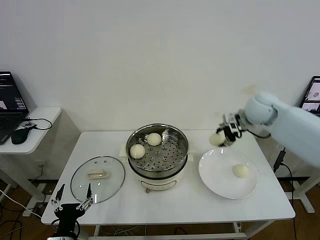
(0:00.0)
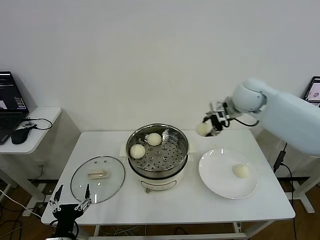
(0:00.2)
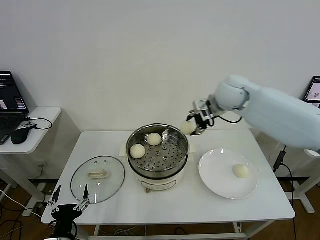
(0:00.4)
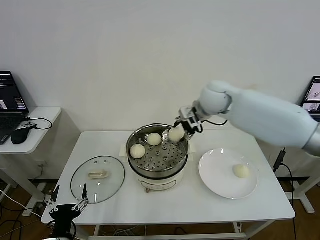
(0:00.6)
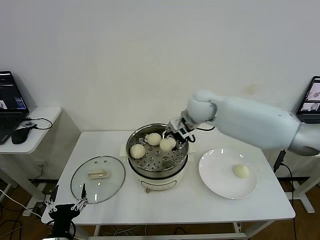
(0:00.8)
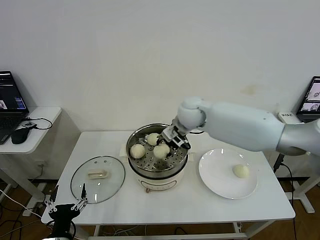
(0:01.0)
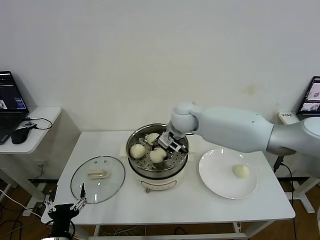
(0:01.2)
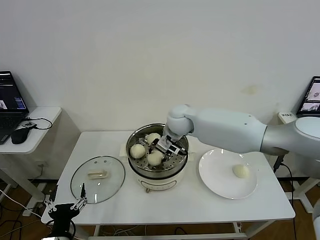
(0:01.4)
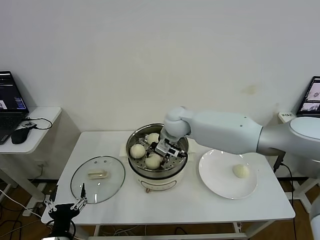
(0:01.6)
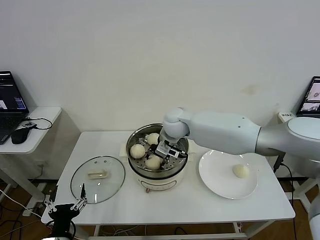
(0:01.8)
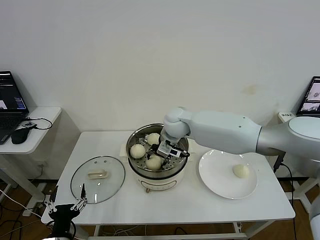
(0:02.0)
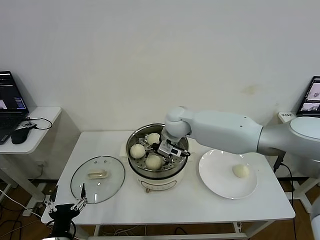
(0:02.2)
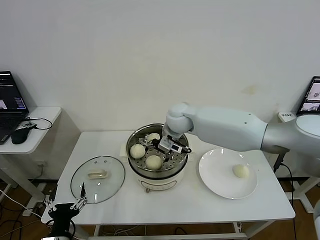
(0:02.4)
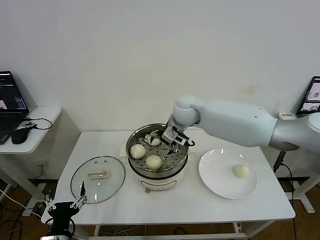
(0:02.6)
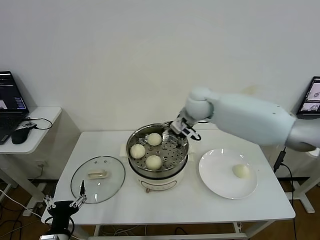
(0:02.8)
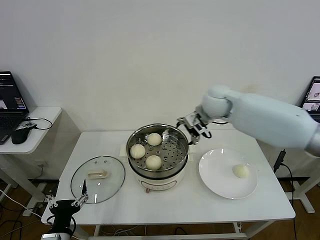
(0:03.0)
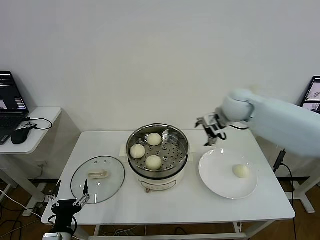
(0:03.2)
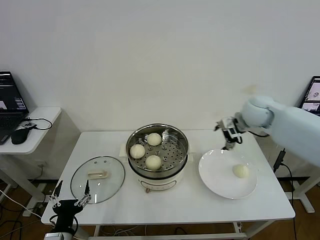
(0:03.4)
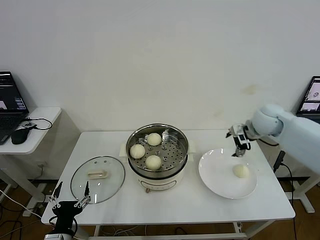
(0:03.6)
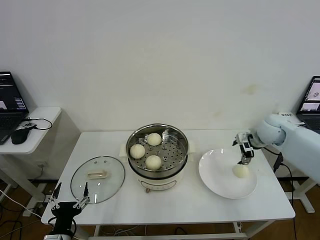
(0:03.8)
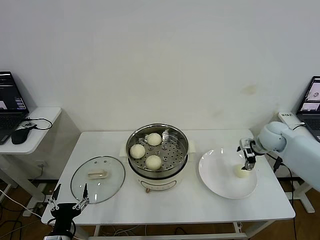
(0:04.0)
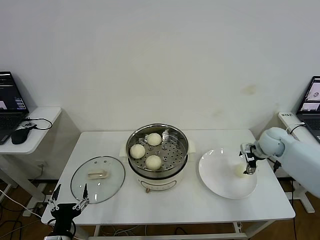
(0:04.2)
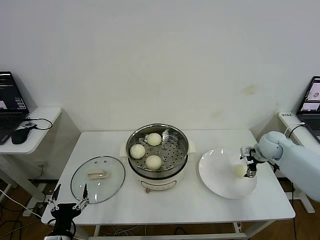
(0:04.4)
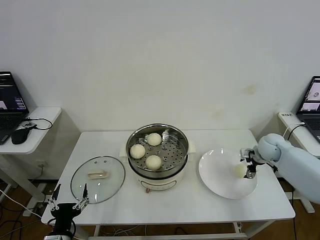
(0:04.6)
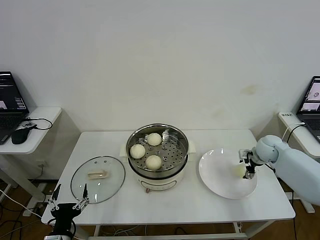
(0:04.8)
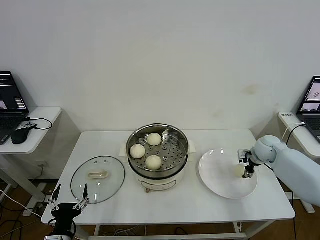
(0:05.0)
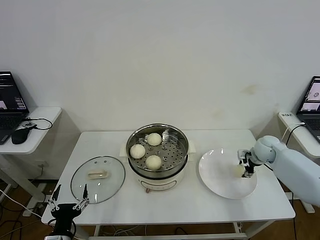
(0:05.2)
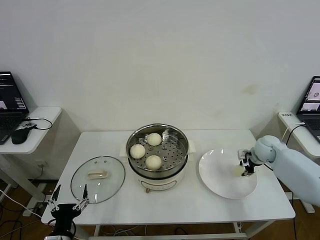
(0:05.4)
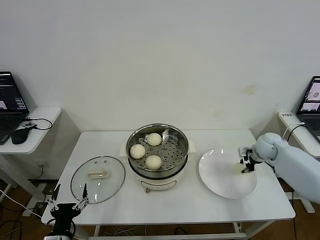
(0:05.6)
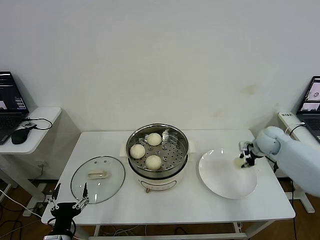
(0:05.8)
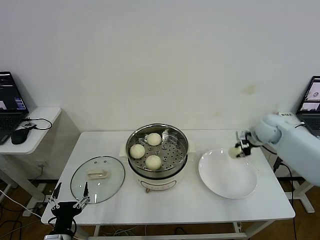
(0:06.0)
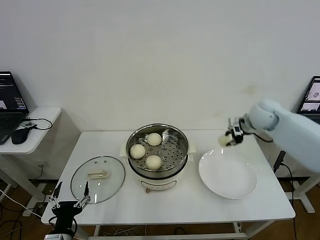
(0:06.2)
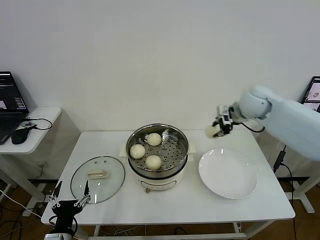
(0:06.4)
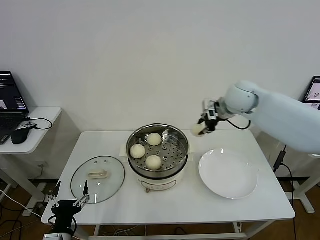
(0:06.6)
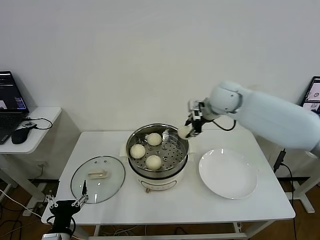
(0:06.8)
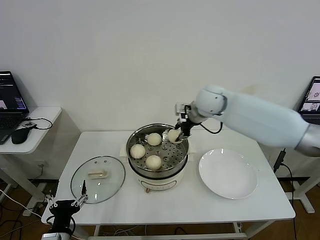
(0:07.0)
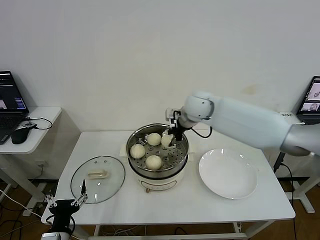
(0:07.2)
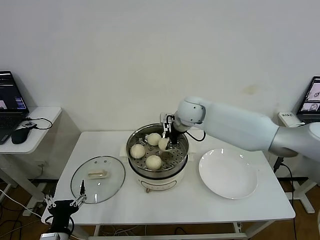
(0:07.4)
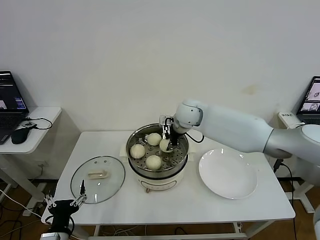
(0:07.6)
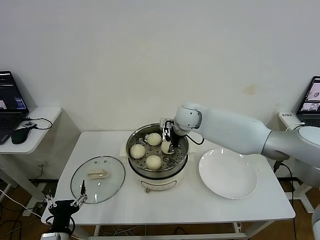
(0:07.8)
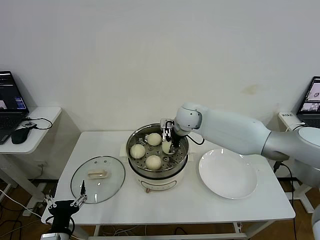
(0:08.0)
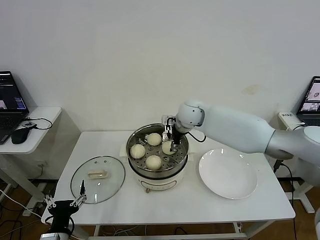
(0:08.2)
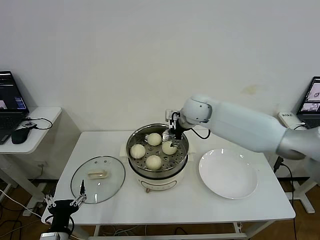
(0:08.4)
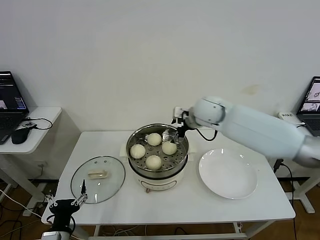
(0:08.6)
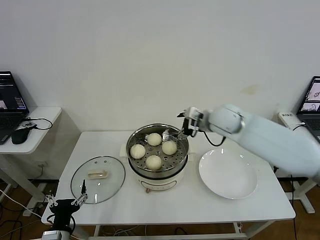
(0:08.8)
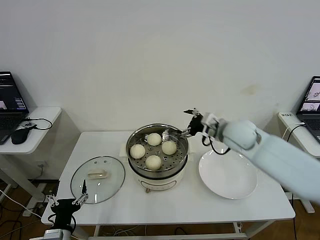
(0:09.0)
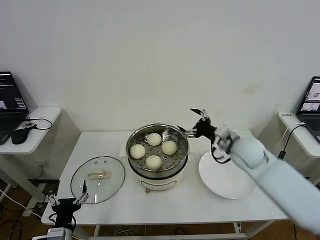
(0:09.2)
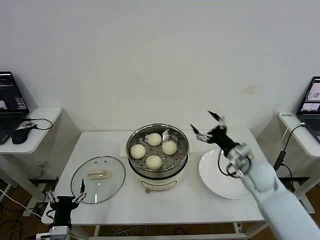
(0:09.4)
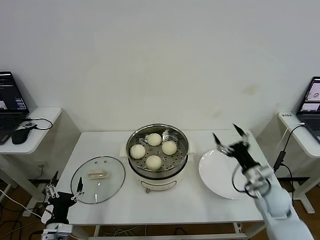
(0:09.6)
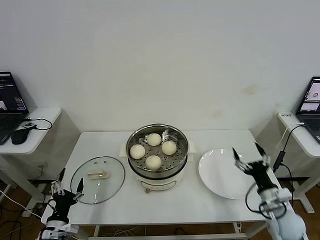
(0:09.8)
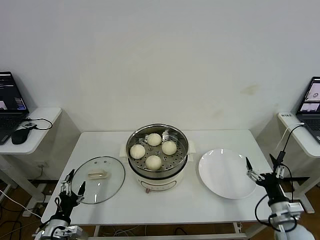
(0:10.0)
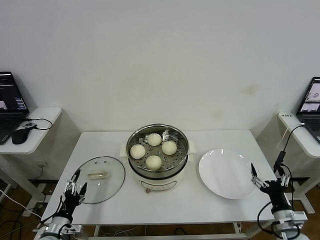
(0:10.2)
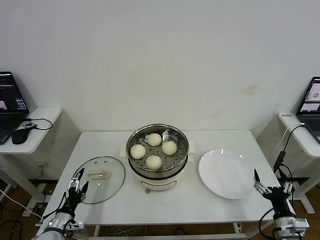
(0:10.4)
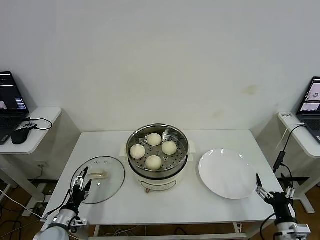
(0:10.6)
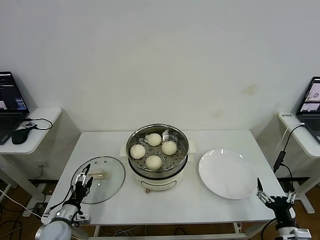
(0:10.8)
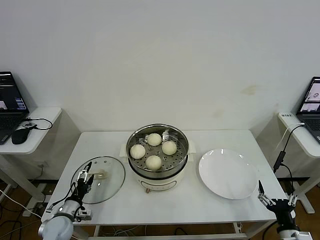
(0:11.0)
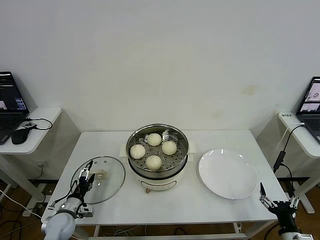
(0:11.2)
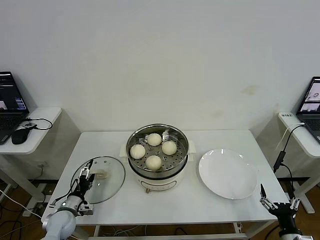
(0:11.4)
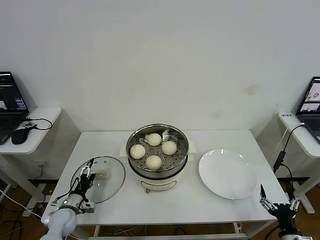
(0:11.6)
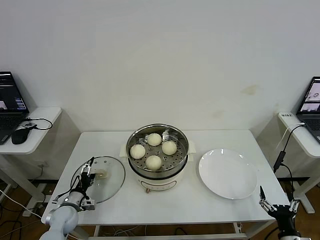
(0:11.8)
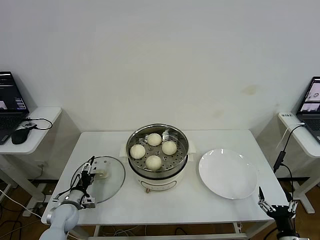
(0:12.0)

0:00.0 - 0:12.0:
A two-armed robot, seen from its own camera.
Step, 0:00.0 - 0:02.2: Place the baozi on the steamer with right gripper.
Step, 0:02.4 - 0:05.4: Grasp the baozi in the plate with right gripper.
Step, 0:05.8 - 0:08.2: Place the baozi on the steamer with right gripper.
0:00.0 - 0:01.6: The right gripper heads to the left, covering roughly 25 cm.
0:01.6 - 0:03.0: The right gripper is displaced to the right and upward by approximately 15 cm, and opens.
0:03.0 - 0:04.4: The right gripper is displaced to the right and downward by approximately 30 cm.
0:04.4 - 0:06.0: The right gripper shifts approximately 10 cm upward, and closes its fingers.
0:06.0 - 0:07.6: The right gripper travels to the left by roughly 30 cm.
0:07.6 - 0:09.0: The right gripper goes about 20 cm to the right and backward, and opens its fingers.
0:09.0 - 0:10.4: The right gripper is displaced backward, downward and to the right by roughly 40 cm; the left gripper shifts some 10 cm to the left, forward and downward.
0:10.4 - 0:12.0: The left gripper goes some 10 cm forward. The right gripper shifts roughly 5 cm backward.

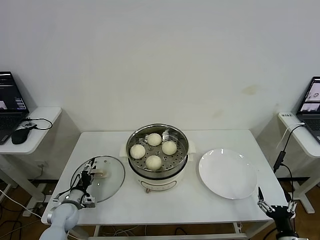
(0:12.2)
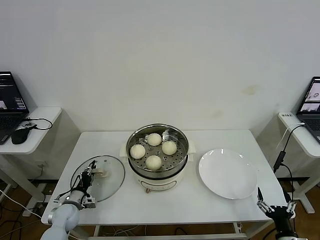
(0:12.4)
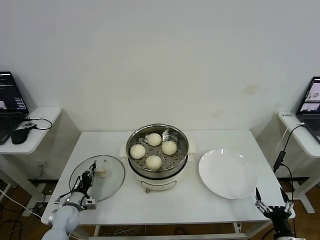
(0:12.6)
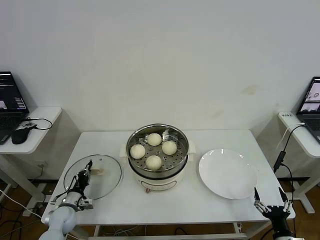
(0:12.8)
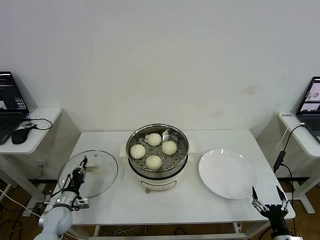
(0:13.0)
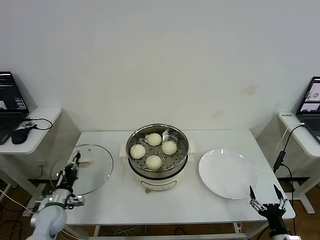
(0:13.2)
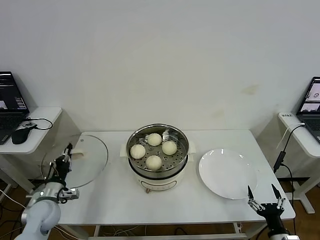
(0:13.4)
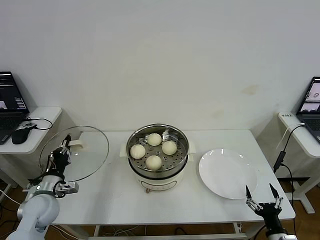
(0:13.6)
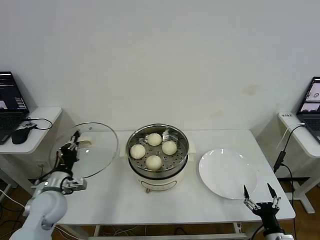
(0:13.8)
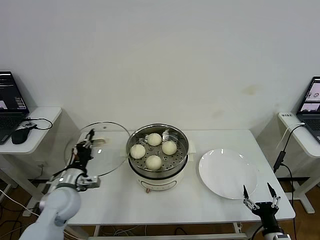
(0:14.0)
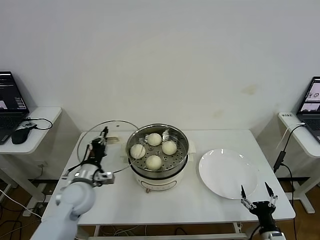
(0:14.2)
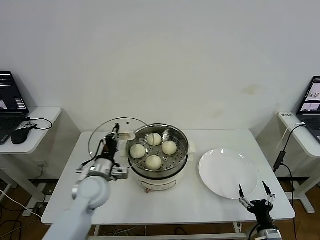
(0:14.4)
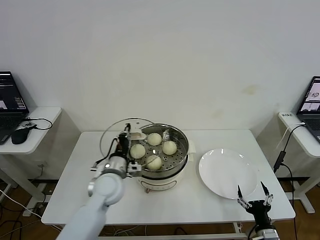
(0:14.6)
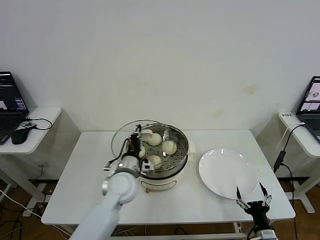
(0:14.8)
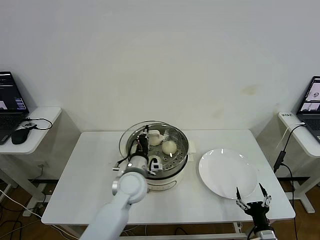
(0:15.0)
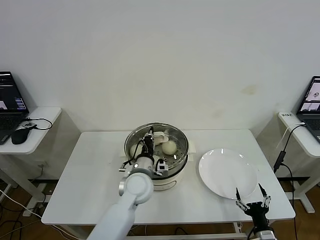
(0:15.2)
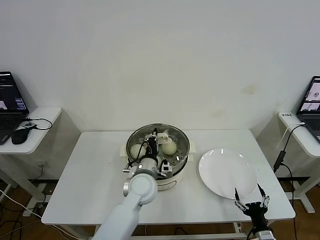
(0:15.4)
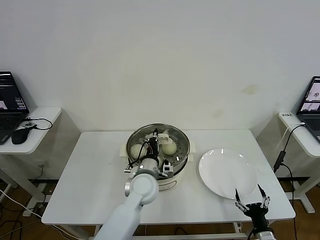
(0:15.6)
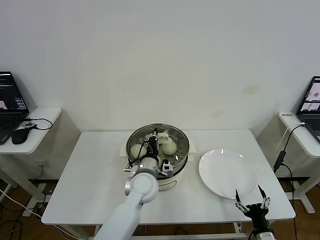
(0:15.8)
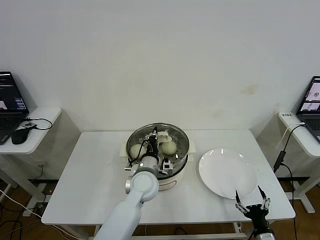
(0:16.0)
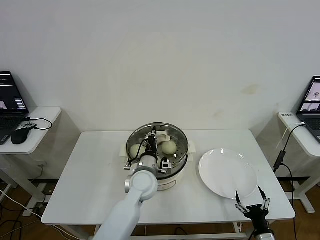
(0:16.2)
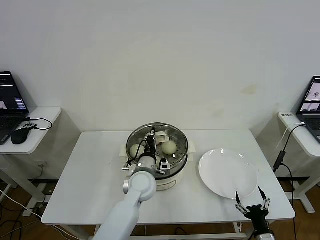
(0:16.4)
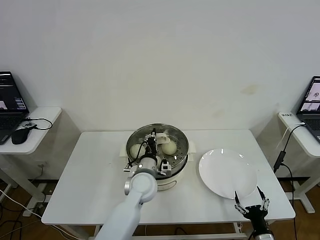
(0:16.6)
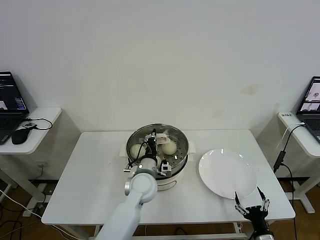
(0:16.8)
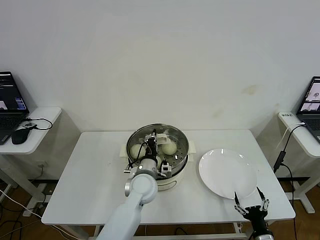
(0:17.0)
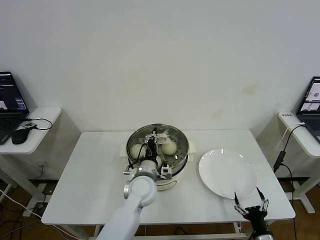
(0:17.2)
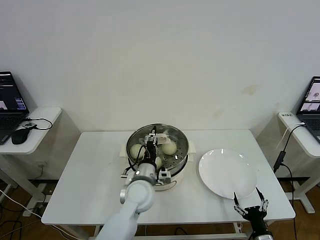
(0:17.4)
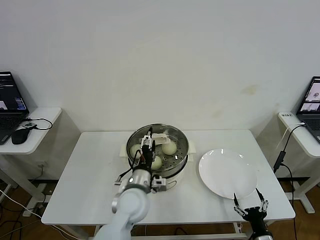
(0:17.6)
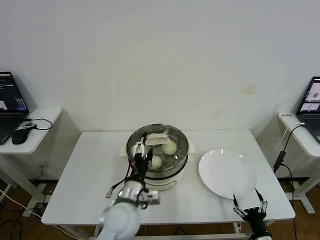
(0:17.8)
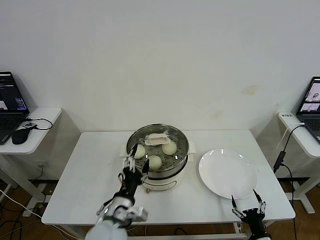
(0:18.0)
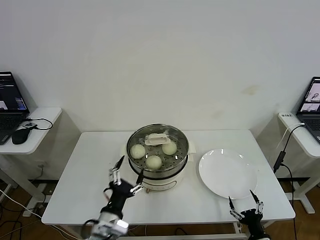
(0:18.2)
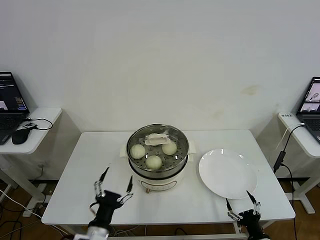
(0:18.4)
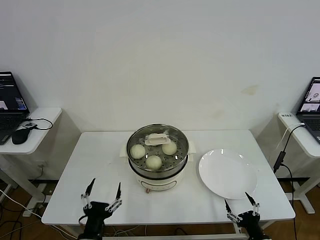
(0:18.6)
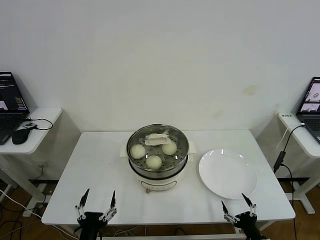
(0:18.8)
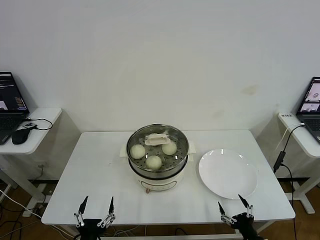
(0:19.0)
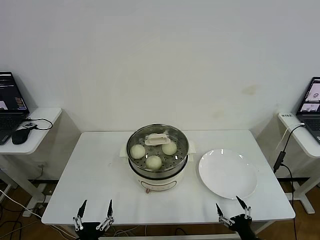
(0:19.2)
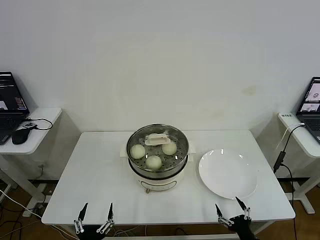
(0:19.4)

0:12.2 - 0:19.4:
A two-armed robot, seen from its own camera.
Step, 0:13.0 - 0:17.2: Place the pot lid on the steamer with left gripper.
0:12.2 - 0:13.6: The left gripper moves upward, roughly 15 cm, and closes.
0:13.6 - 0:15.0: The left gripper travels to the right by roughly 30 cm.
0:15.0 - 0:16.6: There are only small adjustments of the grippers.
0:16.6 - 0:18.0: The left gripper heads backward and to the left, covering about 15 cm, and opens its fingers.
0:18.0 - 0:19.4: The left gripper goes approximately 20 cm backward, downward and to the left.
